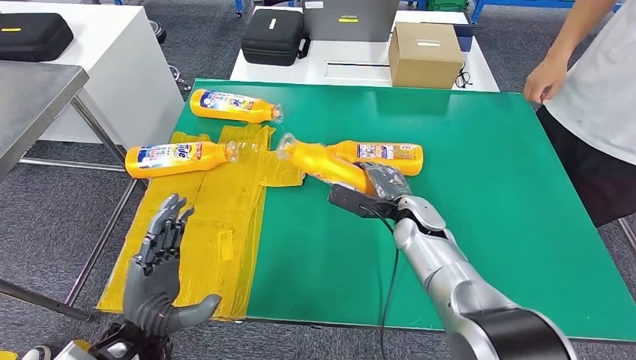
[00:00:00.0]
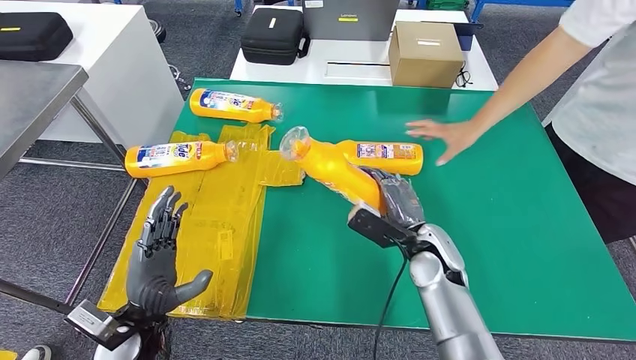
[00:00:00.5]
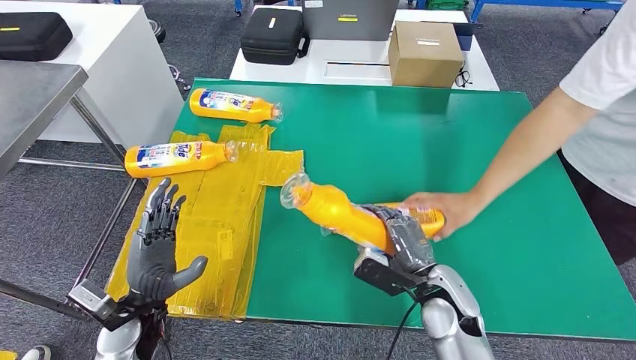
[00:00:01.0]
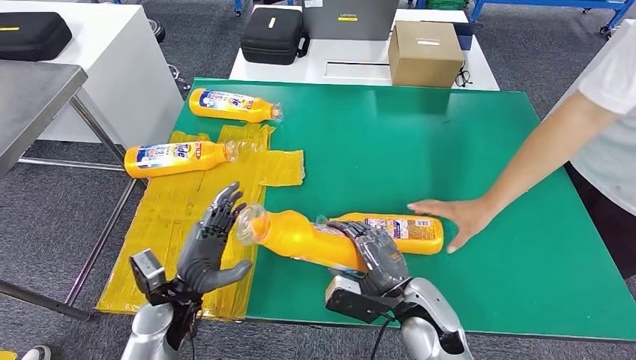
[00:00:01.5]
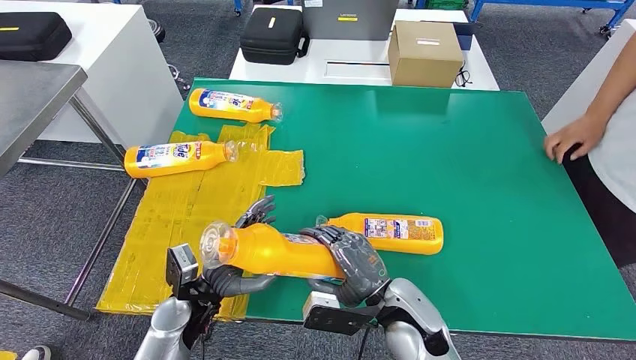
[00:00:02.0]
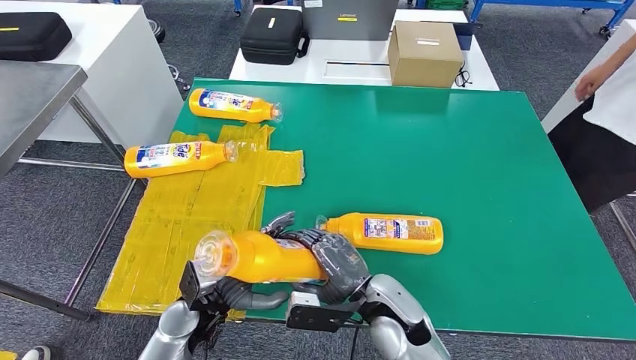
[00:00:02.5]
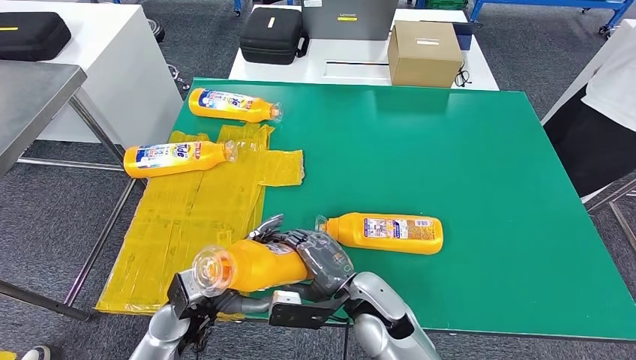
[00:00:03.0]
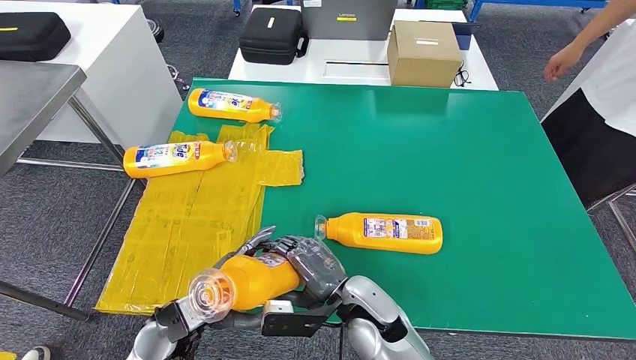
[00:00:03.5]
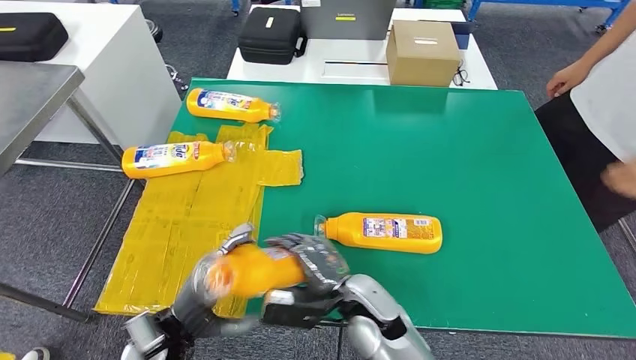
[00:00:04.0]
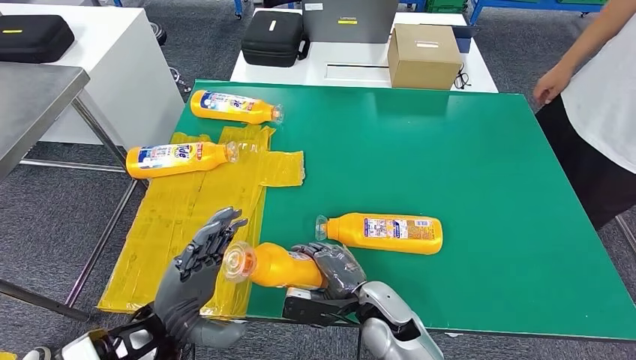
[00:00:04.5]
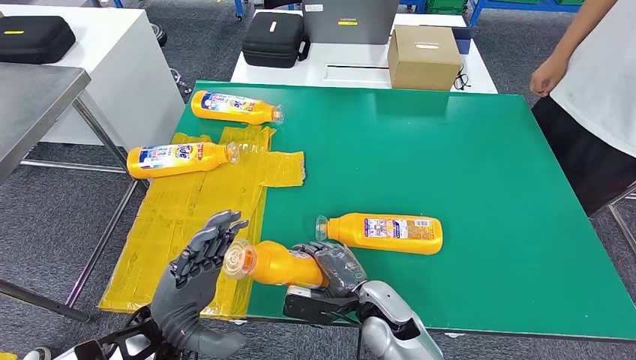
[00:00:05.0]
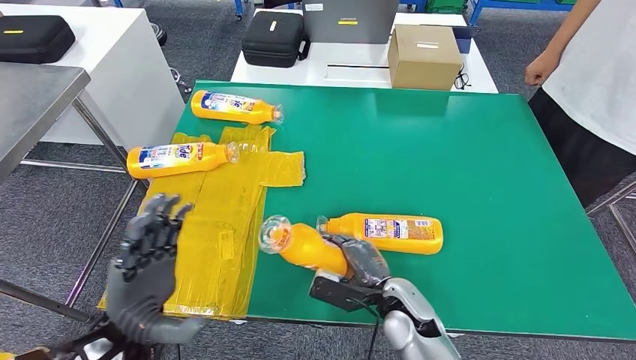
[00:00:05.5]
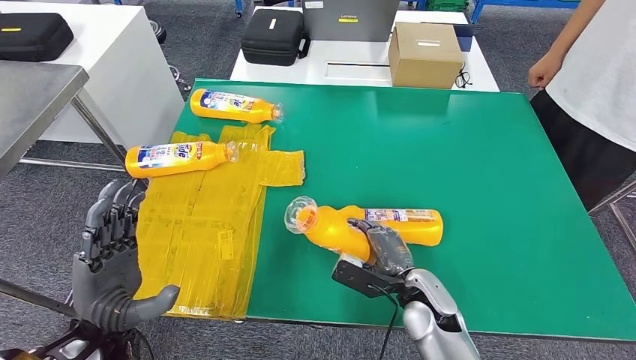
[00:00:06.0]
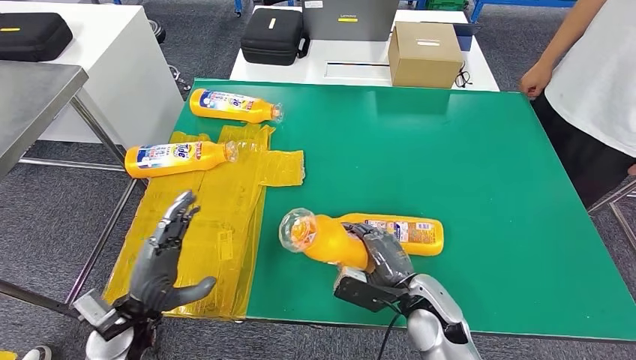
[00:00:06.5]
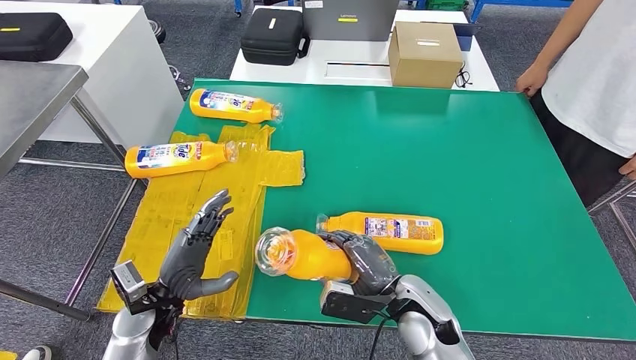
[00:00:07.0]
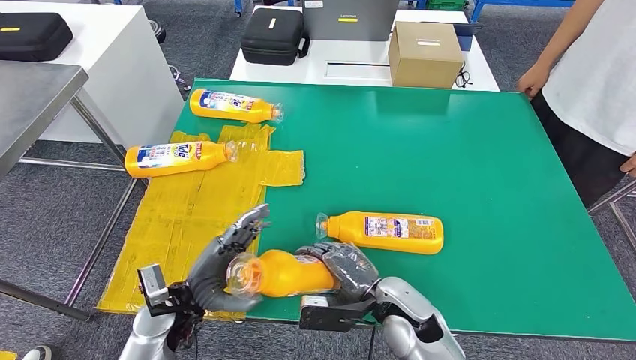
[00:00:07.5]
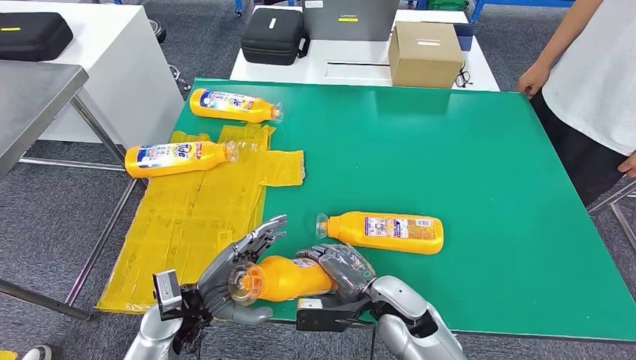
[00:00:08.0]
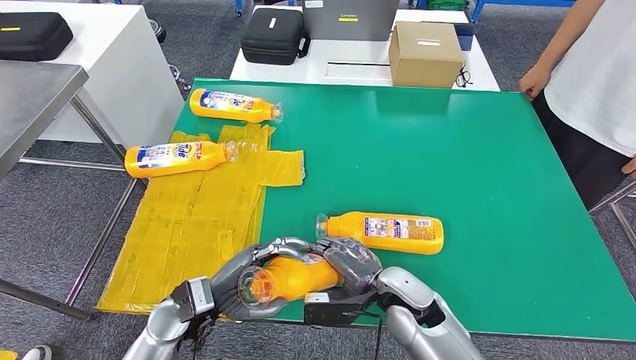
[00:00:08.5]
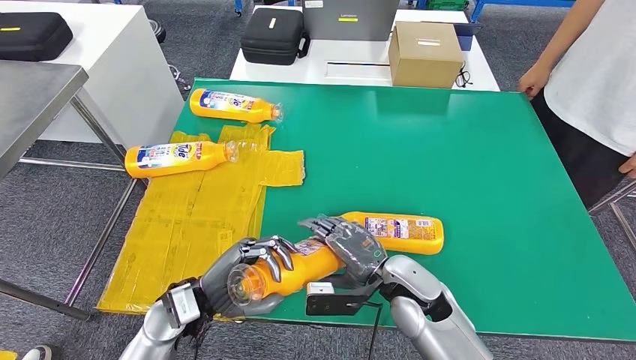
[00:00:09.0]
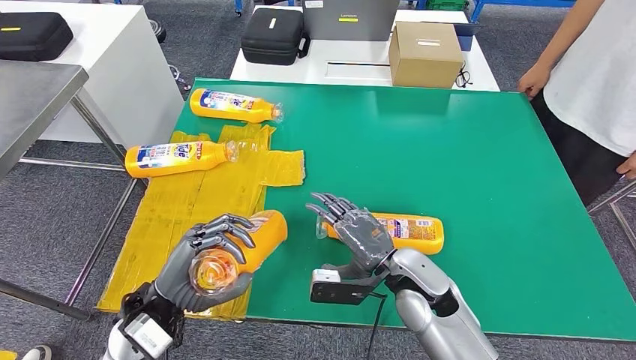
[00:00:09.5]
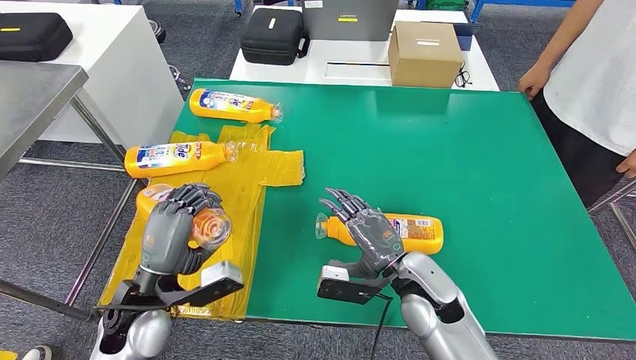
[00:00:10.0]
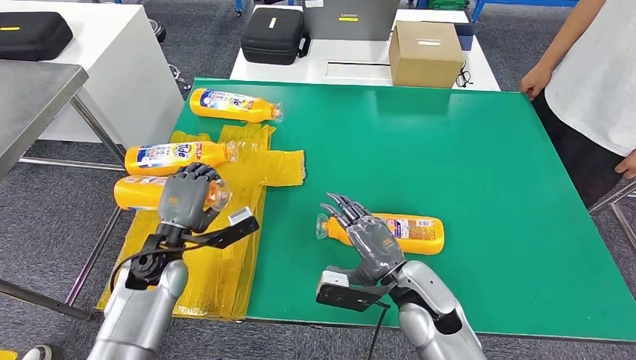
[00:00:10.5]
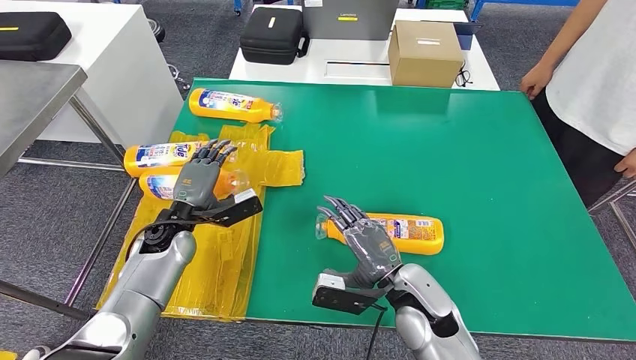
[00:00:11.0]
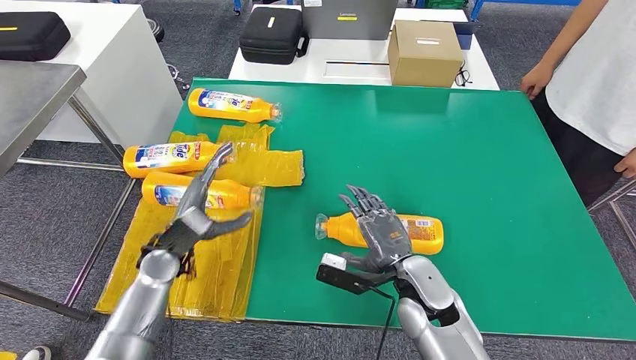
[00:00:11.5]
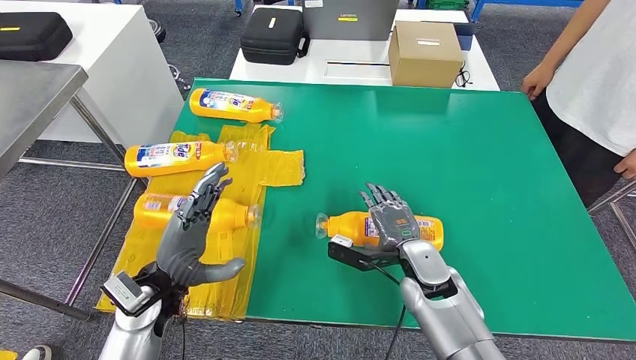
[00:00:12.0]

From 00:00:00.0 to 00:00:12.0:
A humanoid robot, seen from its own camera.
Step, from 00:00:01.5 to 00:00:10.0: Flip the bottle to face forward.
From 00:00:02.0 to 00:00:04.0: The left hand heads backward, covering roughly 5 cm, while the right hand shifts by some 5 cm.
From 00:00:06.0 to 00:00:08.0: The right hand shifts some 5 cm to the left, while the left hand travels to the right, downward and forward by approximately 10 cm.
From 00:00:08.0 to 00:00:10.0: Both hands move upward, roughly 5 cm.
From 00:00:10.0 to 00:00:12.0: The left hand moves approximately 15 cm forward and comes back. Meanwhile the right hand ends up roughly 5 cm from where it was.

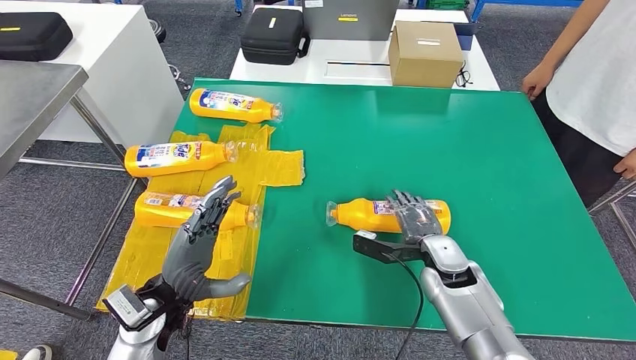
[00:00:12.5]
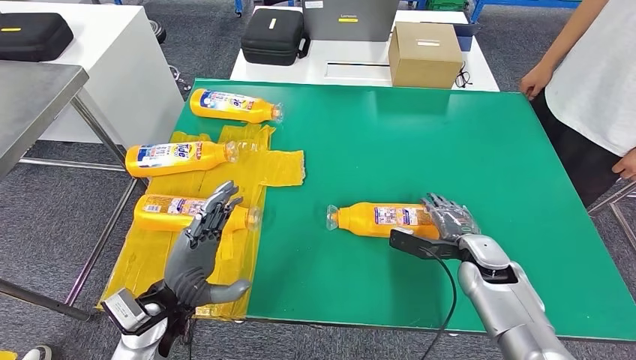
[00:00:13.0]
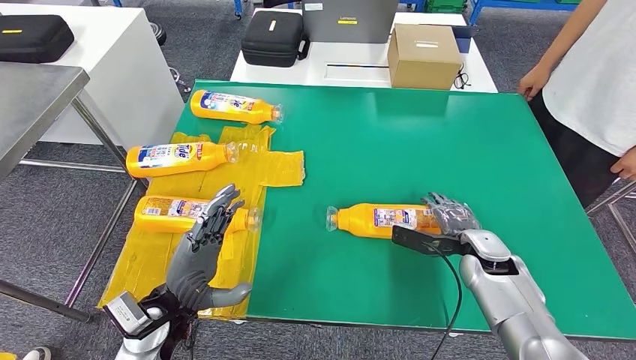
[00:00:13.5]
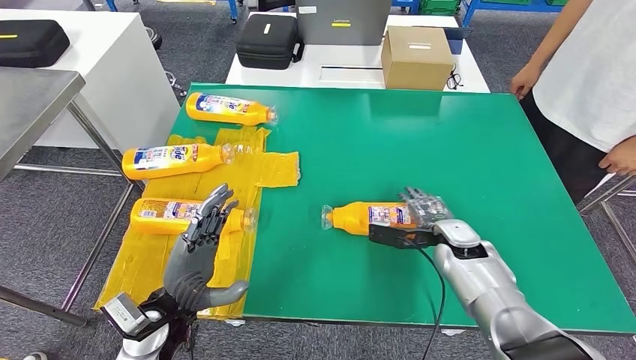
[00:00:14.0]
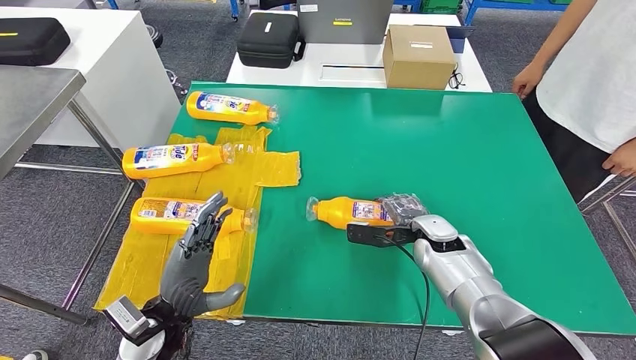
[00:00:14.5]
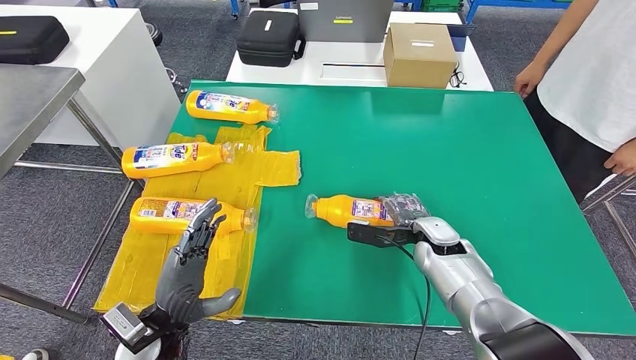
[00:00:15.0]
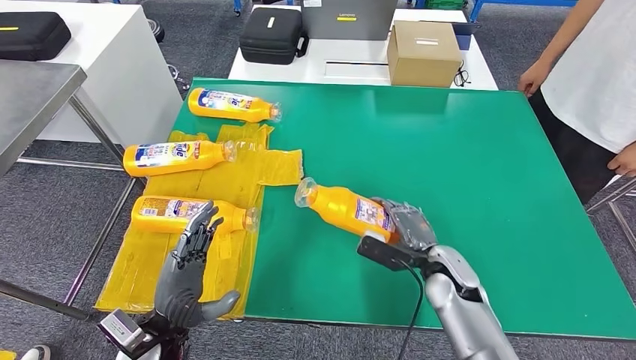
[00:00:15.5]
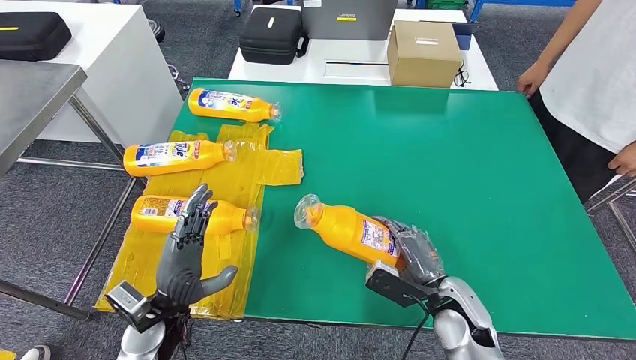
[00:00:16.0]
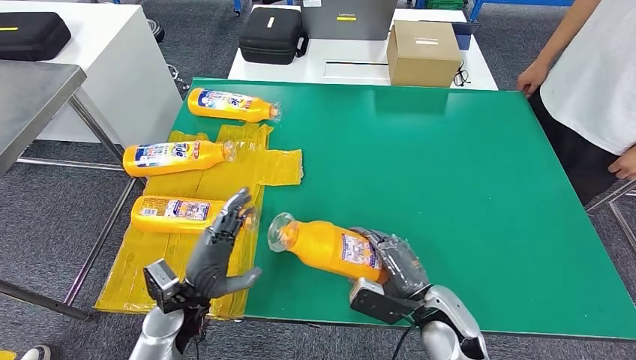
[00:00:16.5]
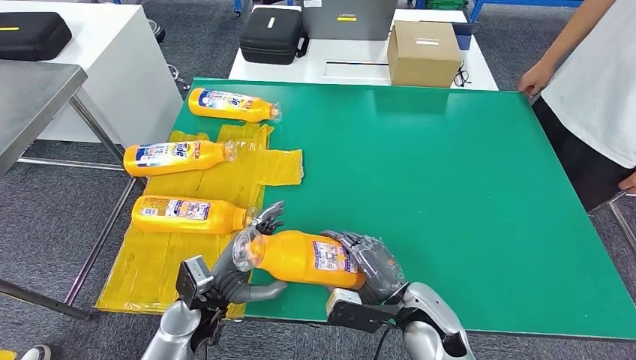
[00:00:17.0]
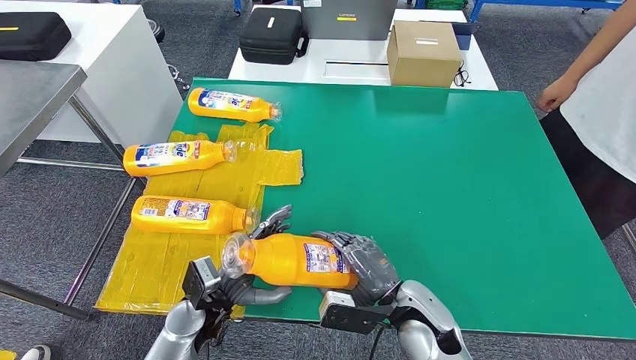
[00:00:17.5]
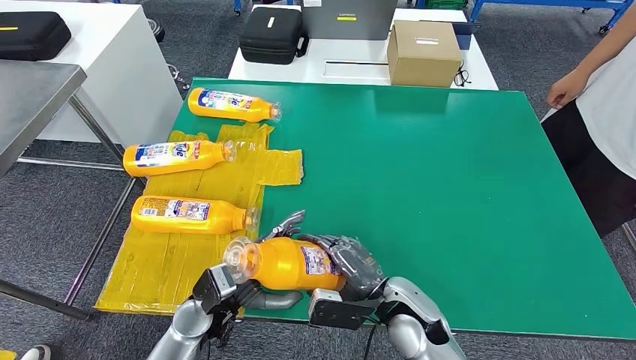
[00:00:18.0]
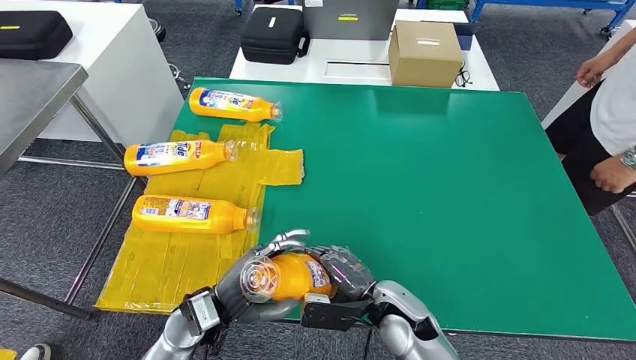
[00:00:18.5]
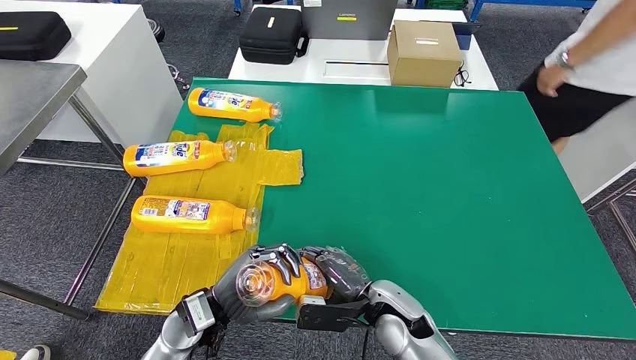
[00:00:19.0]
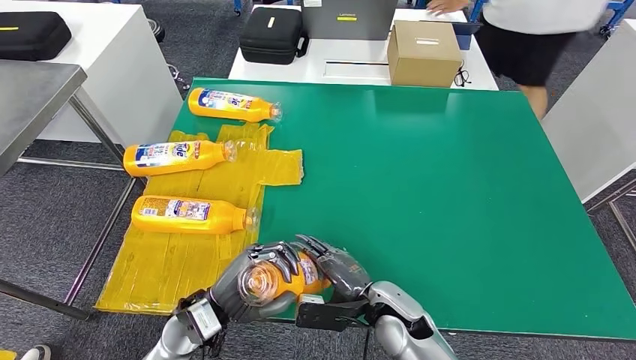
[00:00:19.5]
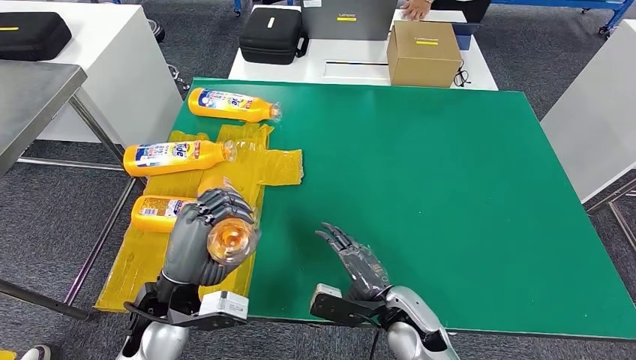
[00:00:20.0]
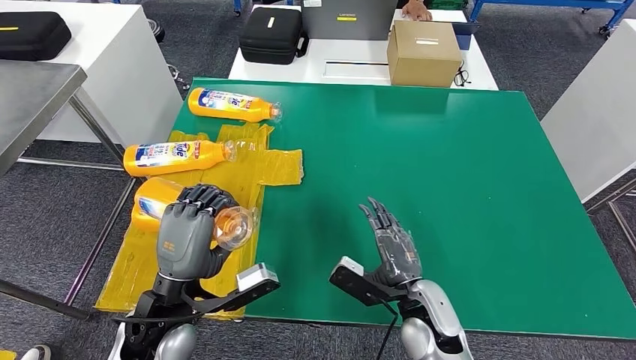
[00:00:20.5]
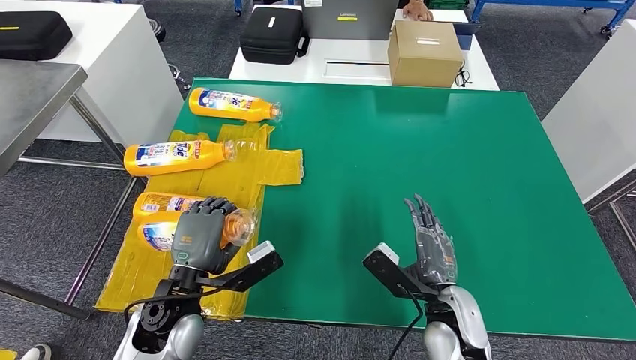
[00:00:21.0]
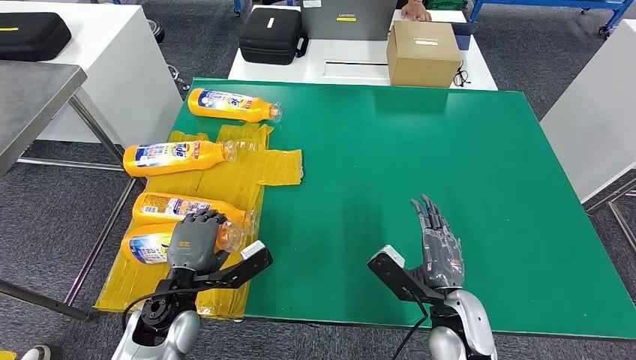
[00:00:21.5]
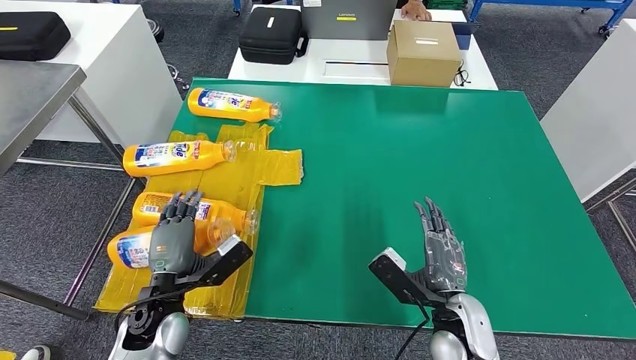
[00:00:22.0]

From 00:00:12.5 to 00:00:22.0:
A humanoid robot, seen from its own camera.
Step, from 00:00:12.5 to 00:00:17.0: Pick up the bottle from the table.
Step, from 00:00:17.5 to 00:00:22.0: Flip the bottle to face forward.
From 00:00:16.5 to 00:00:18.0: The right hand moves to the left, some 5 cm.
From 00:00:18.0 to 00:00:20.0: The left hand shifts some 10 cm upward.
From 00:00:20.0 to 00:00:22.0: The right hand goes roughly 5 cm to the right; the left hand moves downward, roughly 5 cm.
